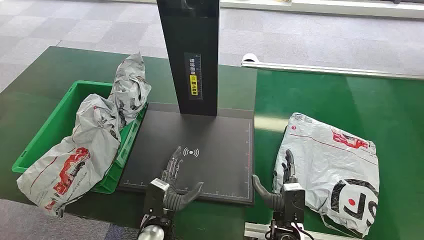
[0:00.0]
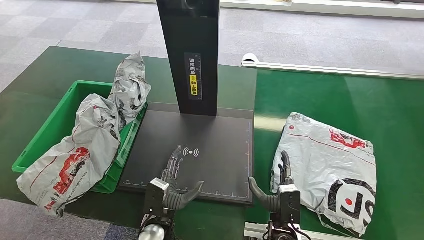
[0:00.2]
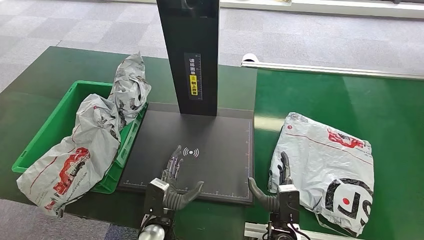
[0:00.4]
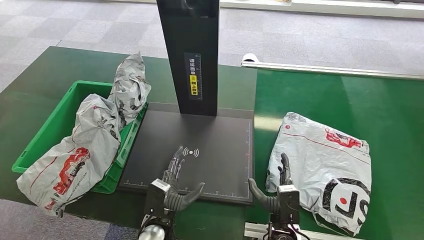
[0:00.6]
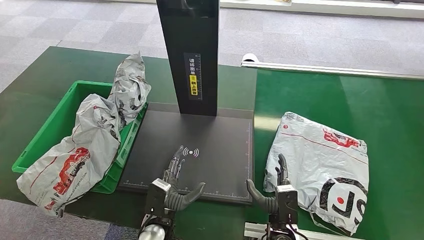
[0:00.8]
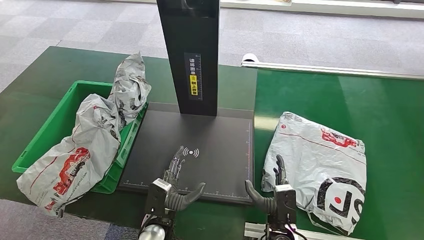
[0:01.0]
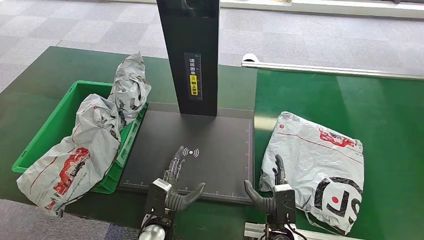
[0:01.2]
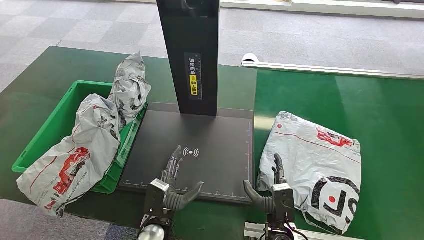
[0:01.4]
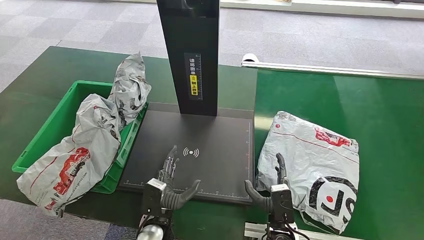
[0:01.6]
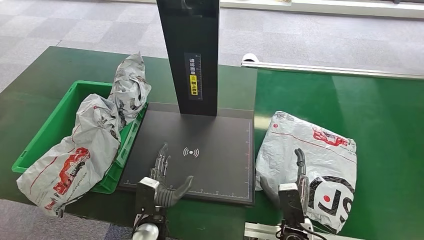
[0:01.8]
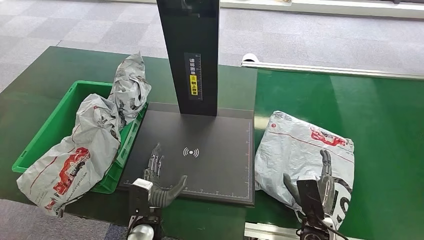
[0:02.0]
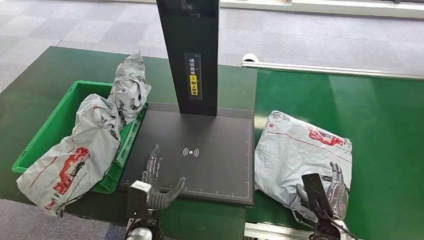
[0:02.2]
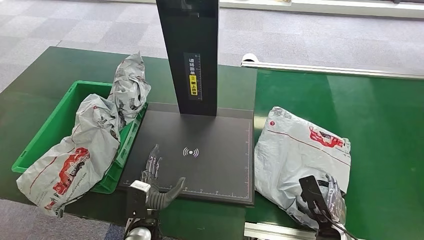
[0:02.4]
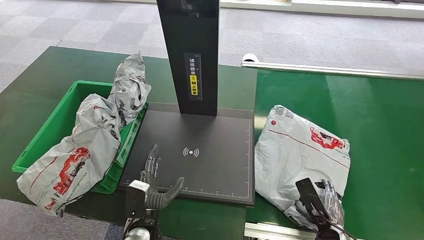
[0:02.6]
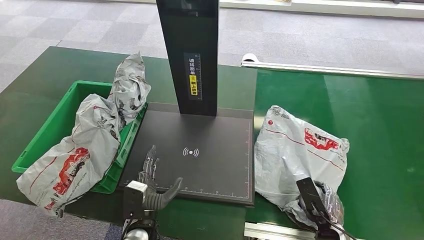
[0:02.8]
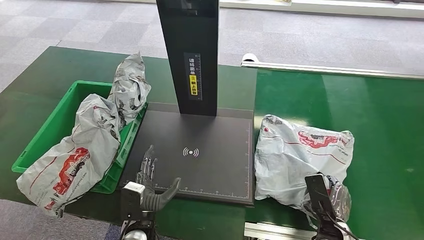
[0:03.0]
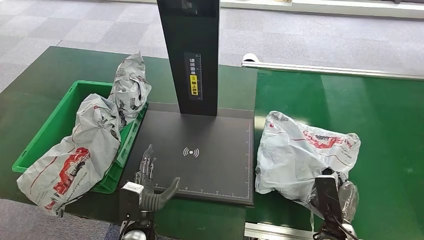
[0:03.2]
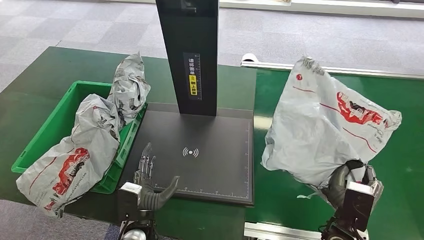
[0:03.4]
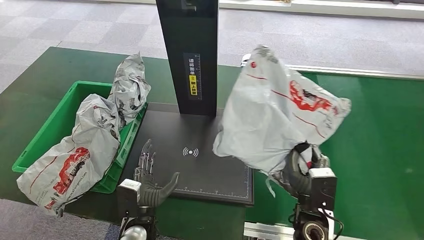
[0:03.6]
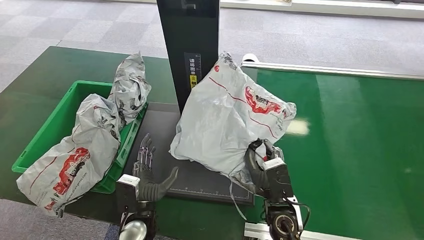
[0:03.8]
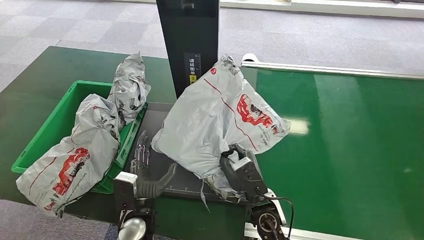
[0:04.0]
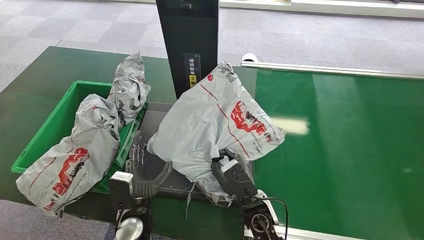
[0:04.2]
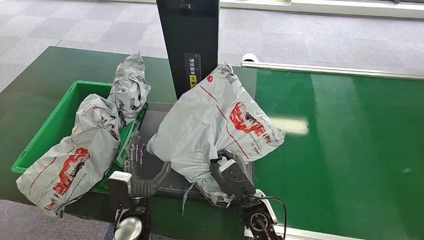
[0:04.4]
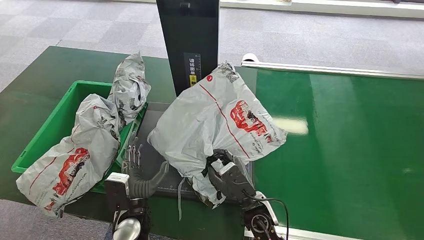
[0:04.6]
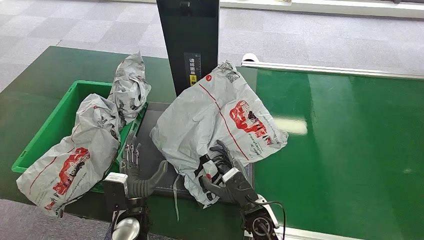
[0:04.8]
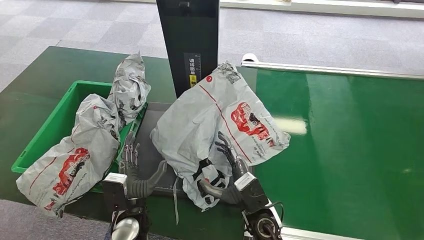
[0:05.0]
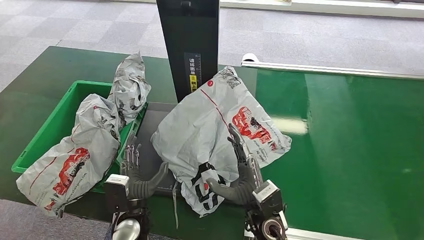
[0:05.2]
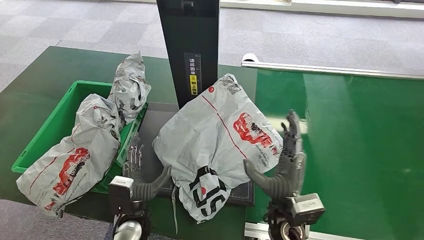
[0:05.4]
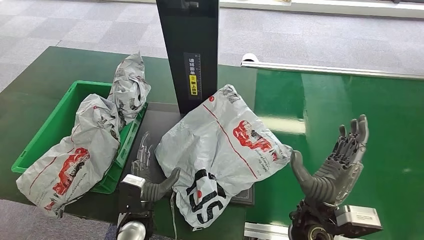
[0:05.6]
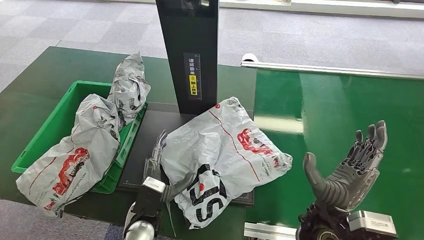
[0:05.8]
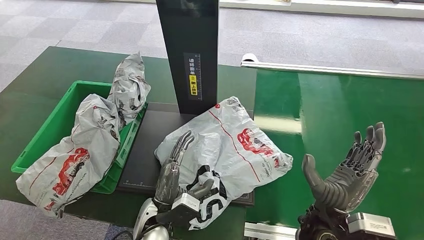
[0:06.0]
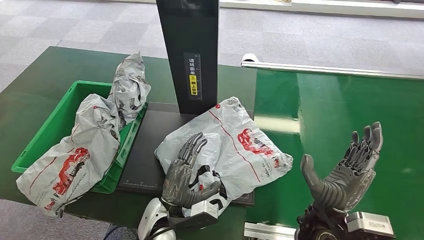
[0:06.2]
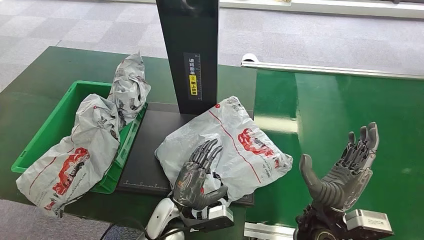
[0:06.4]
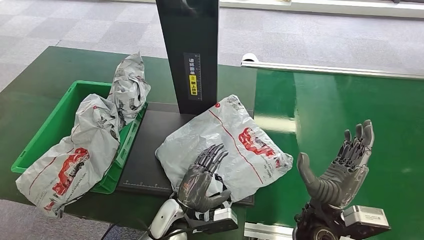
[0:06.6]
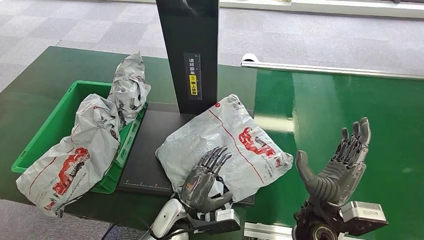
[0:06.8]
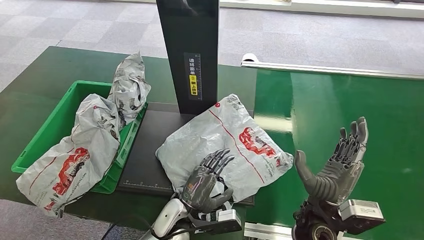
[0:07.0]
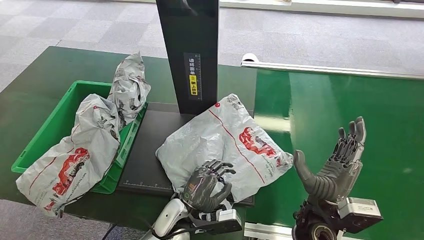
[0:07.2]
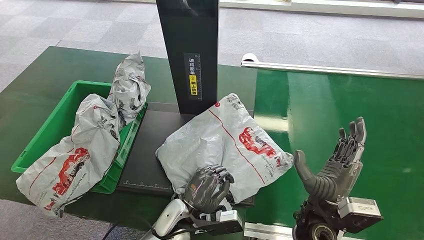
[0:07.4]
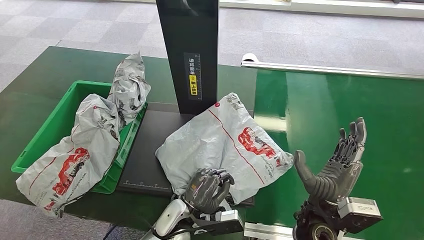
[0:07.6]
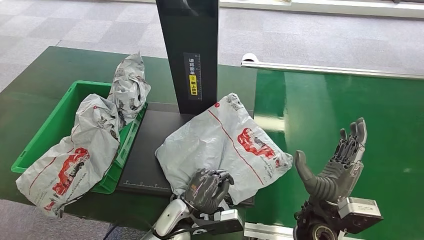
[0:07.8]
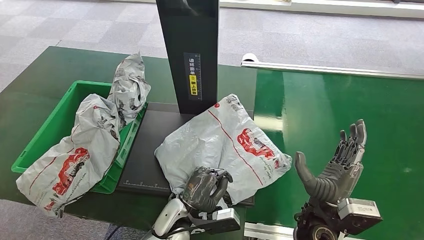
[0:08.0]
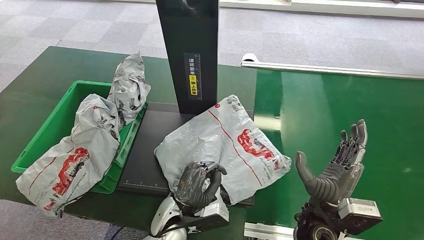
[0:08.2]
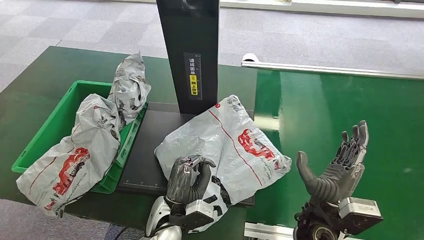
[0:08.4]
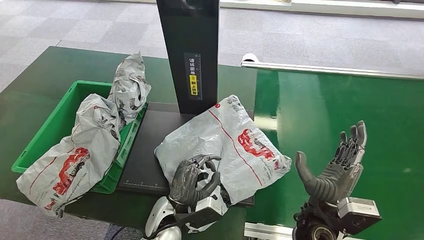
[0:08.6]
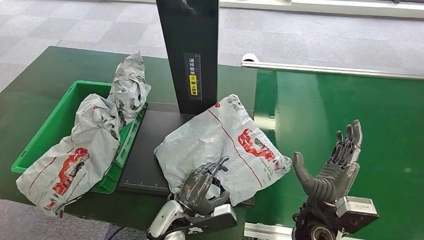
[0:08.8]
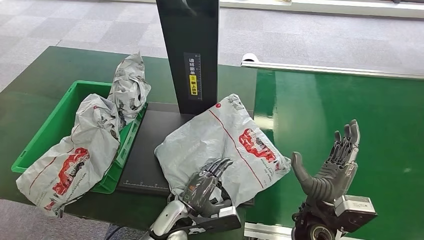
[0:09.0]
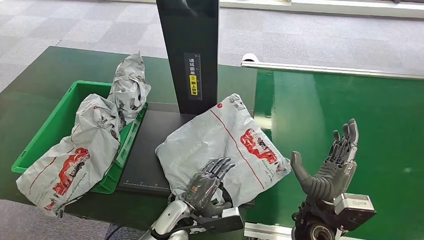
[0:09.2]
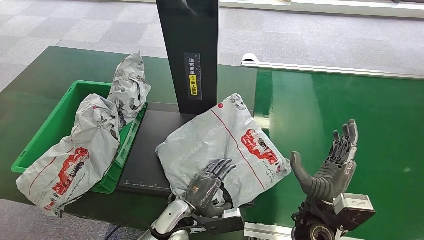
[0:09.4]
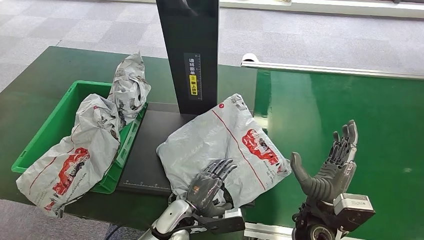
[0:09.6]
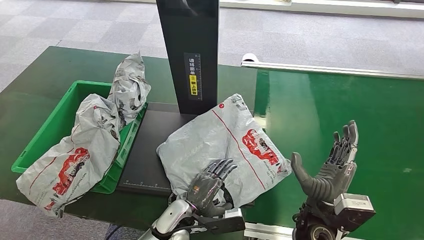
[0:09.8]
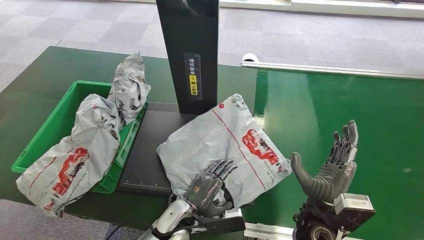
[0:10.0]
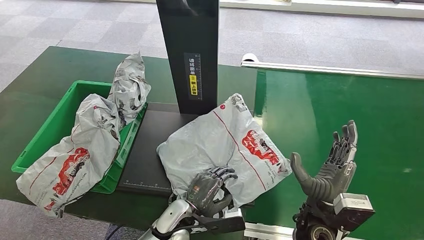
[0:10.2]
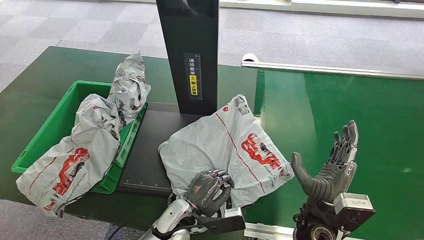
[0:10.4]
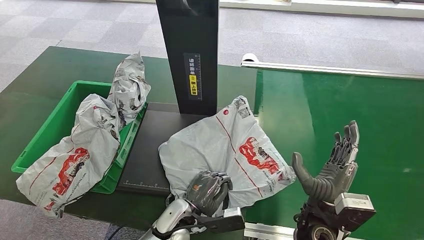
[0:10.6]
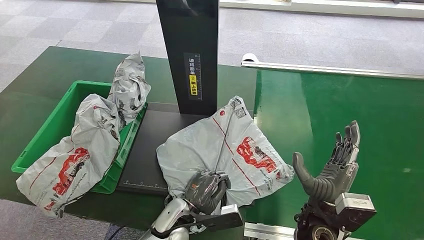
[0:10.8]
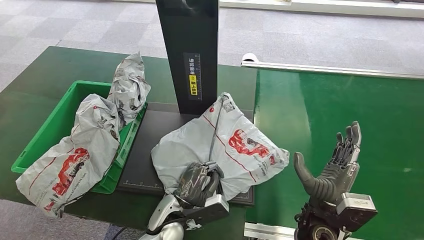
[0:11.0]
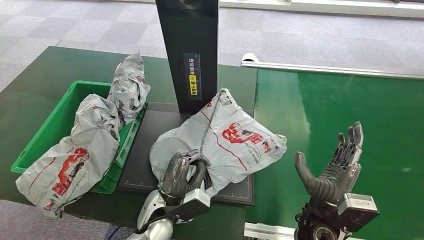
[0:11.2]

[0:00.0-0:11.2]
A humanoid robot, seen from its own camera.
Step, 0:00.0 to 0:03.4: Pick up the package from the conveyor belt.
Step, 0:03.6 to 0:06.0: Place the package onto the inbound machine.
0:01.6 to 0:03.2: The right hand is displaced to the right by roughly 10 cm.
0:06.4 to 0:08.0: There are only small adjustments of the hands.
0:09.6 to 0:11.2: The left hand moves about 5 cm.

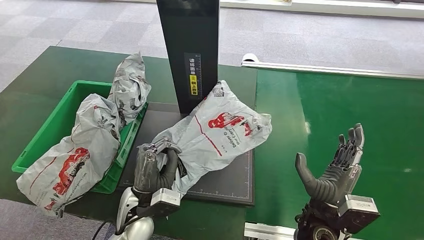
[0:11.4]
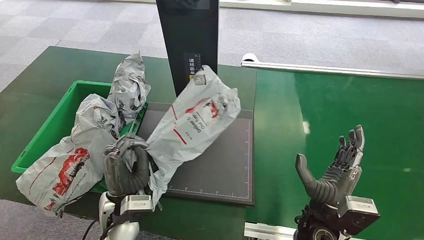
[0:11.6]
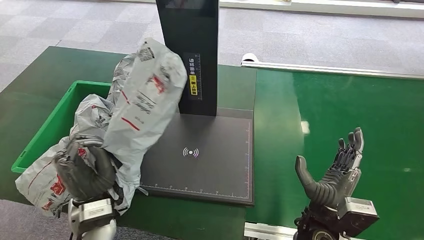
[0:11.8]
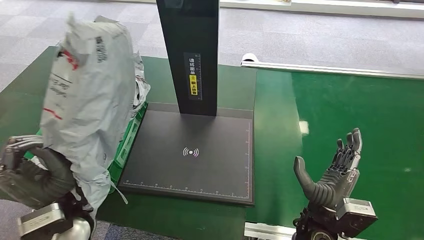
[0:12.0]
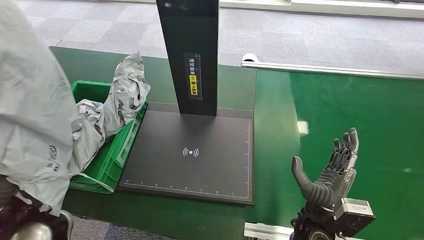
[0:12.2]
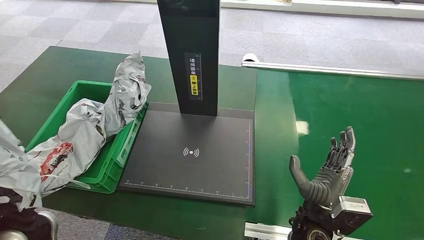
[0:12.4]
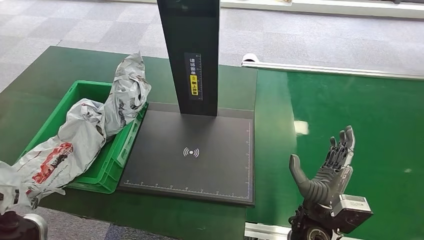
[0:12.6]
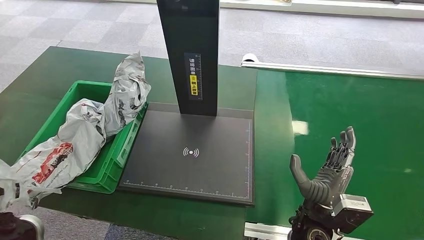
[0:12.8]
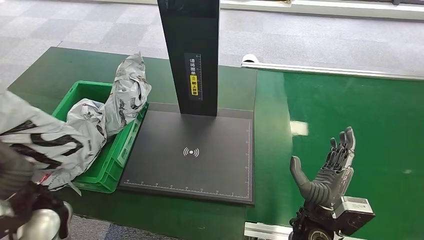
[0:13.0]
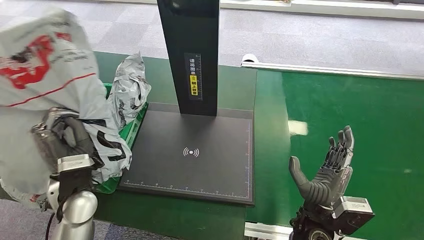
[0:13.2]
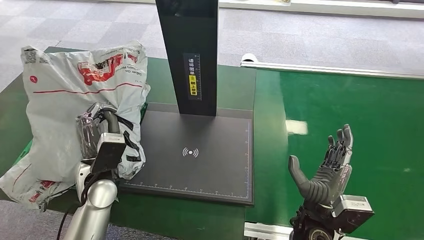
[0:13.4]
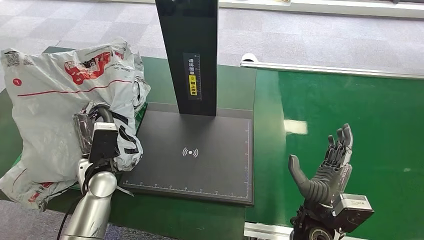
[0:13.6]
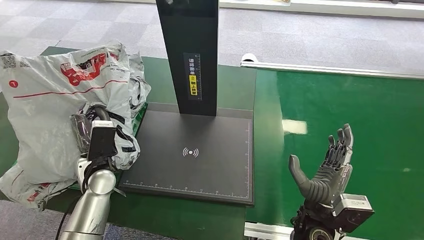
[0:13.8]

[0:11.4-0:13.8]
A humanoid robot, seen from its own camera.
Step, 0:12.4 to 0:13.8: Place the package into the parcel locker.

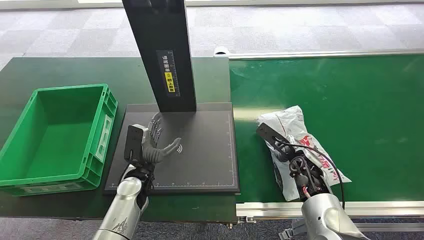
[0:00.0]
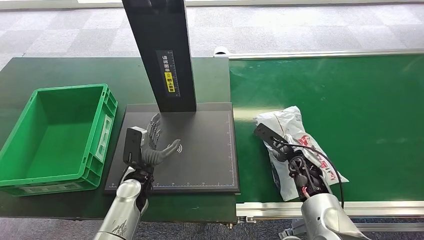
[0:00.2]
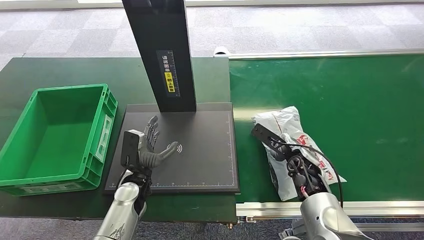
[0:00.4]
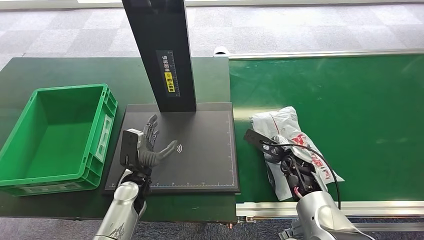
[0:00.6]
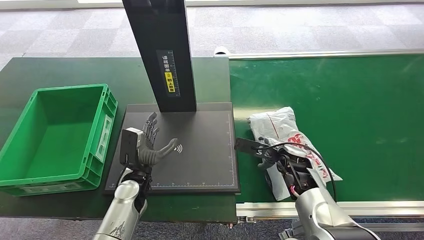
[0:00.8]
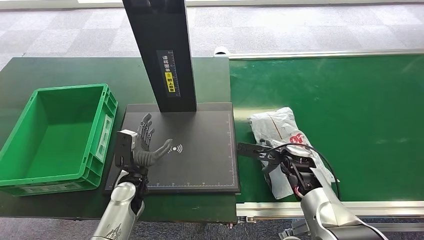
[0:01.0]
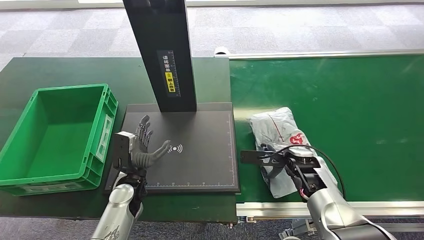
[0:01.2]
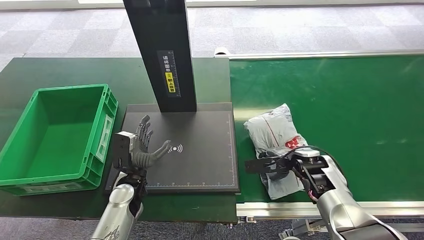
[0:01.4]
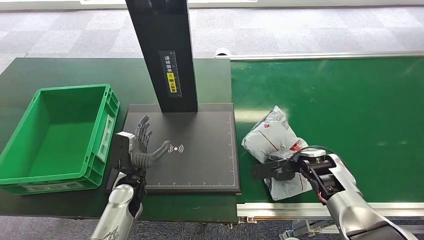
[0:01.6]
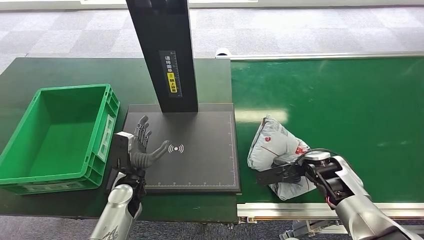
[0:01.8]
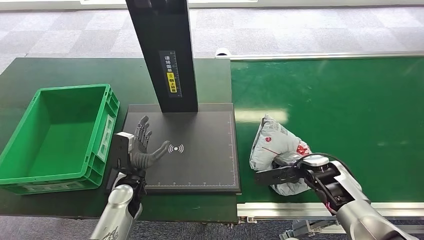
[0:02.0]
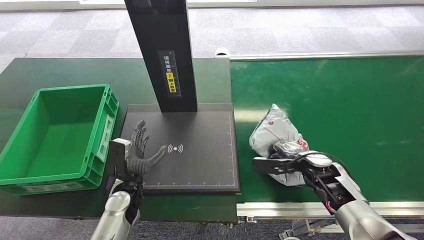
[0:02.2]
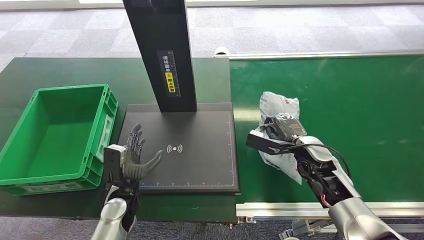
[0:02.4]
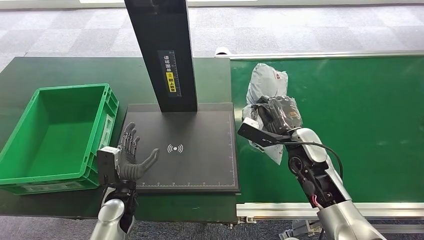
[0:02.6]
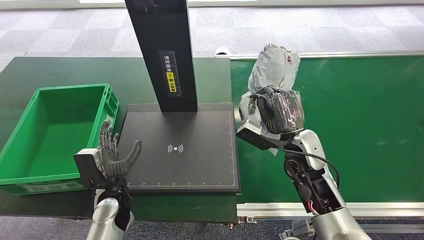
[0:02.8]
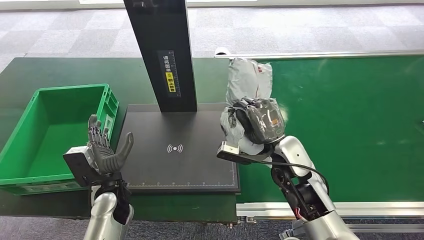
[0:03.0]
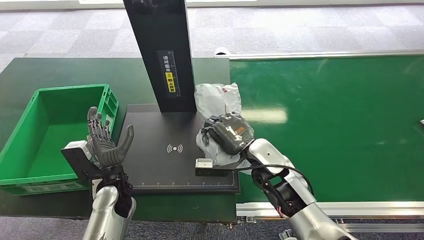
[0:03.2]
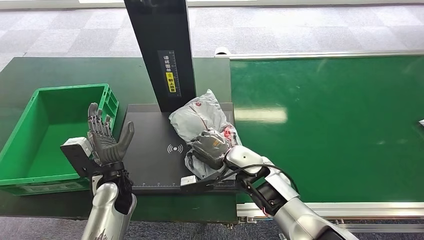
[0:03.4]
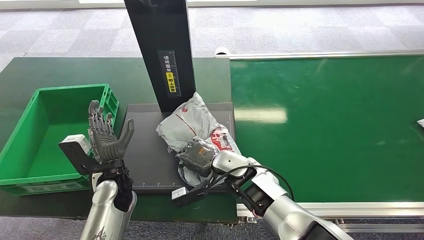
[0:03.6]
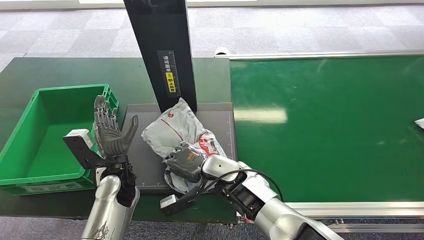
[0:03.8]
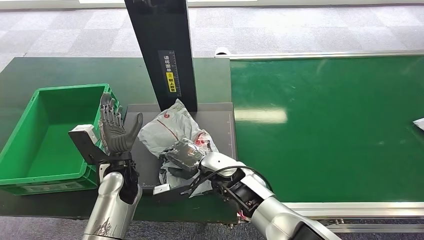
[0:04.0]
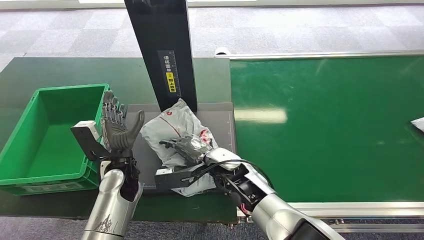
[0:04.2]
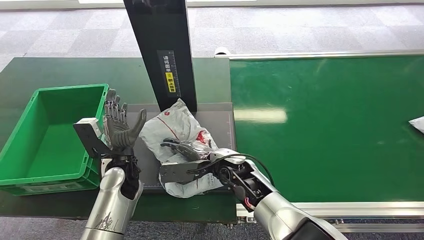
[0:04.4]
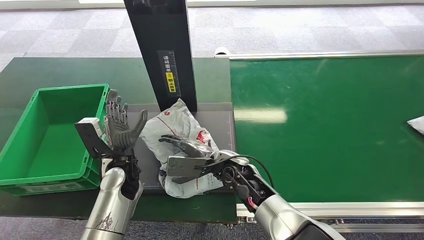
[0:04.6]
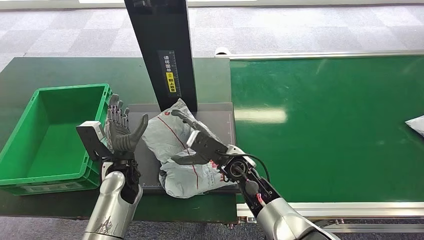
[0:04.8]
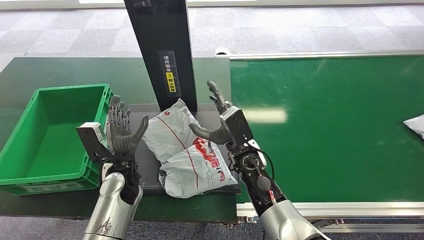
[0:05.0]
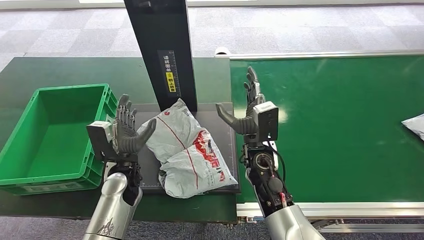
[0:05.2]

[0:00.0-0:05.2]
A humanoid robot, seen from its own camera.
Step, 0:00.0 to 0:02.8: Pick up the package from the conveyor belt.
